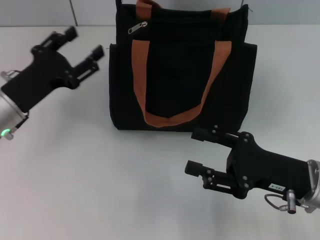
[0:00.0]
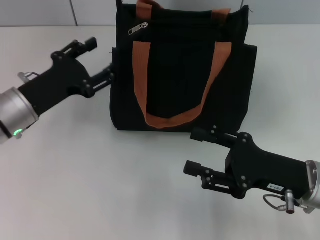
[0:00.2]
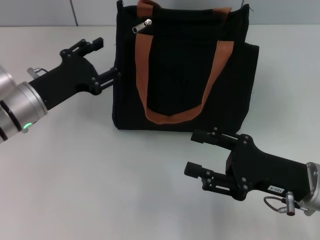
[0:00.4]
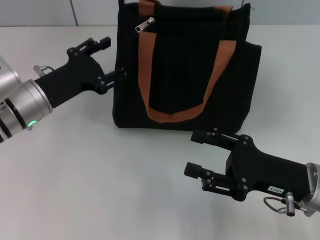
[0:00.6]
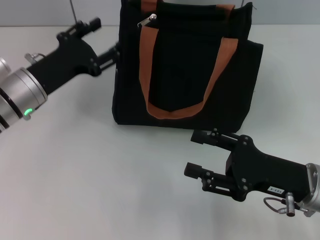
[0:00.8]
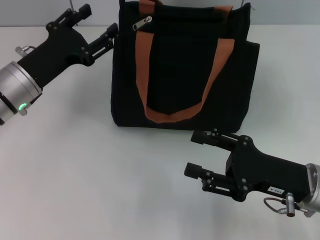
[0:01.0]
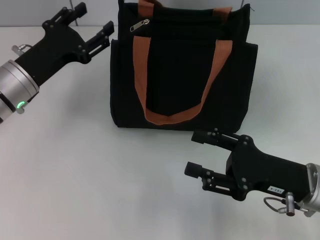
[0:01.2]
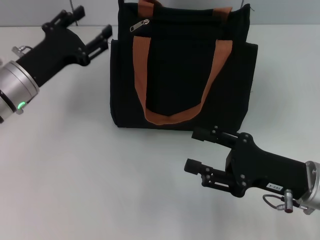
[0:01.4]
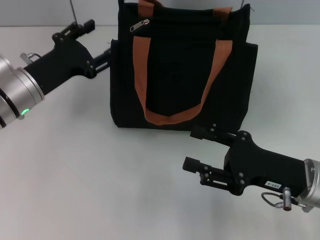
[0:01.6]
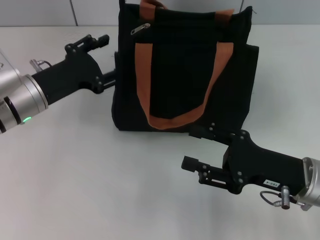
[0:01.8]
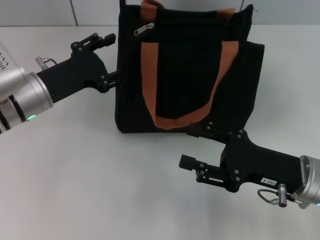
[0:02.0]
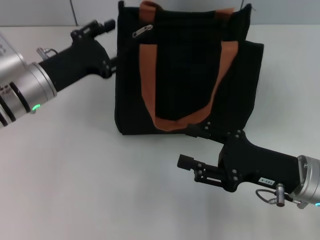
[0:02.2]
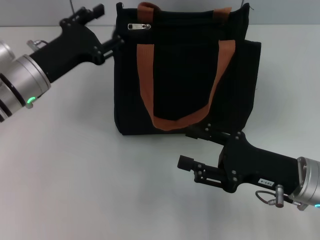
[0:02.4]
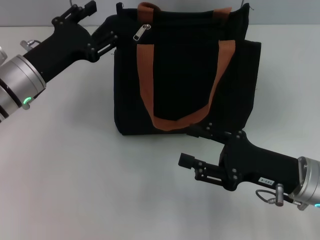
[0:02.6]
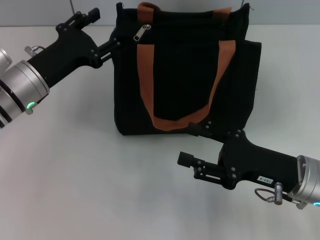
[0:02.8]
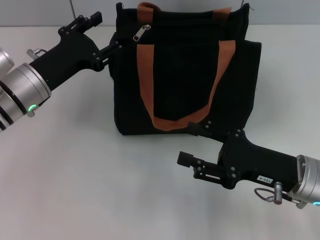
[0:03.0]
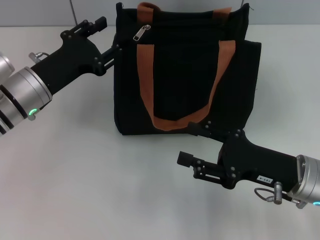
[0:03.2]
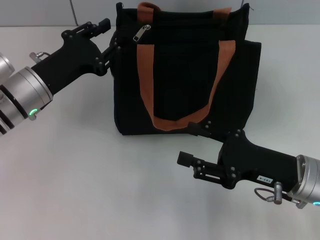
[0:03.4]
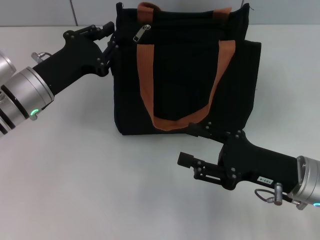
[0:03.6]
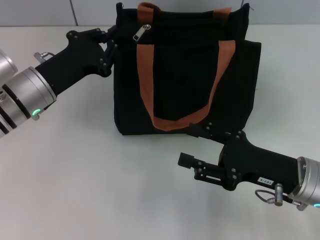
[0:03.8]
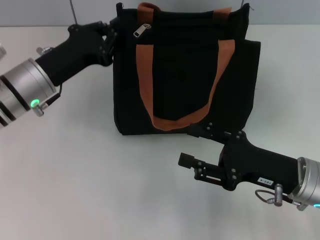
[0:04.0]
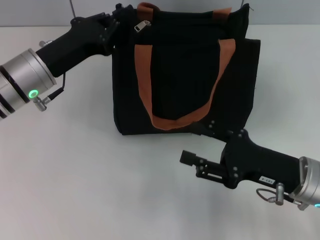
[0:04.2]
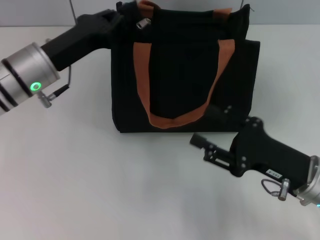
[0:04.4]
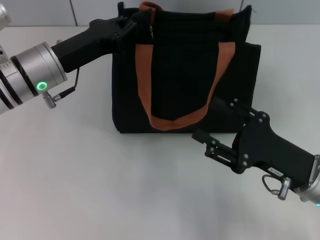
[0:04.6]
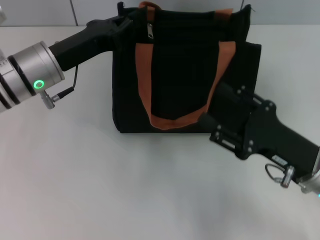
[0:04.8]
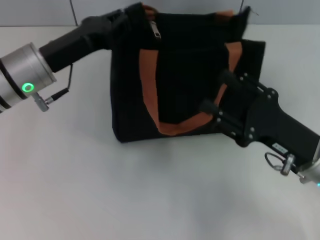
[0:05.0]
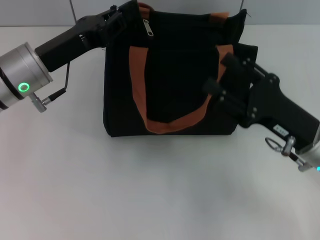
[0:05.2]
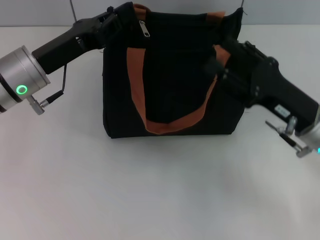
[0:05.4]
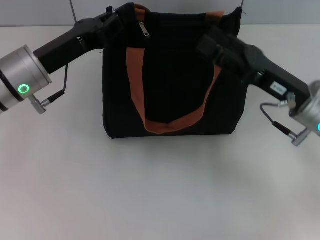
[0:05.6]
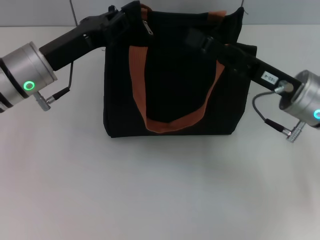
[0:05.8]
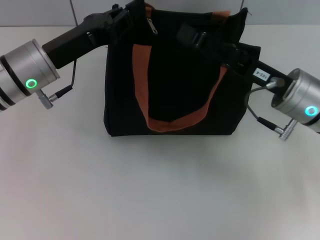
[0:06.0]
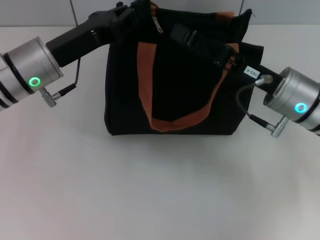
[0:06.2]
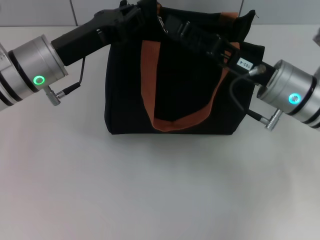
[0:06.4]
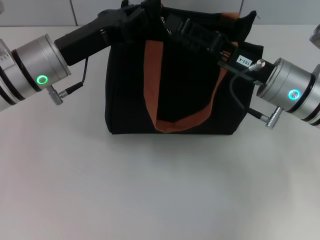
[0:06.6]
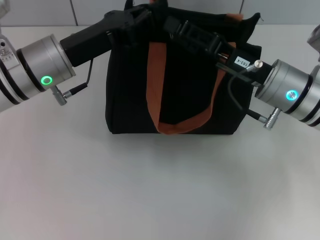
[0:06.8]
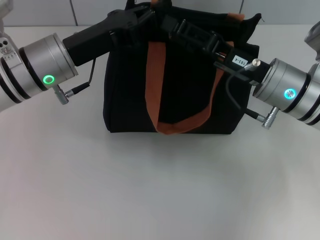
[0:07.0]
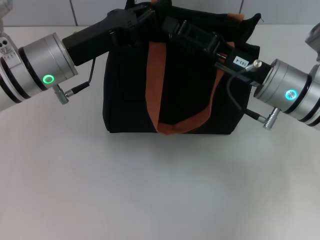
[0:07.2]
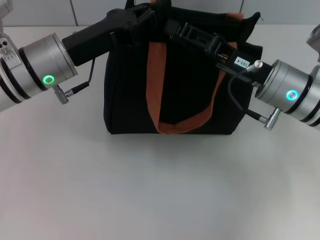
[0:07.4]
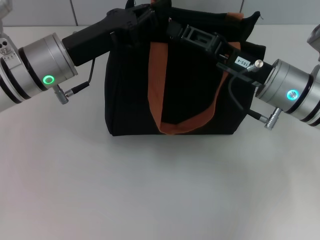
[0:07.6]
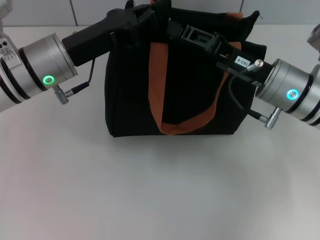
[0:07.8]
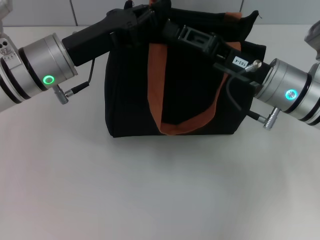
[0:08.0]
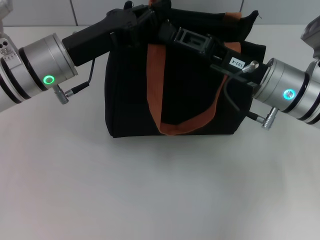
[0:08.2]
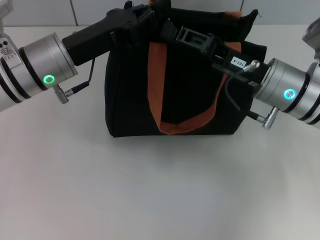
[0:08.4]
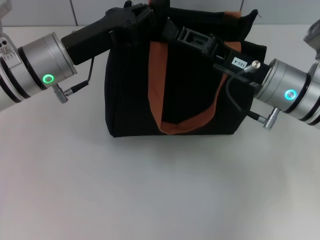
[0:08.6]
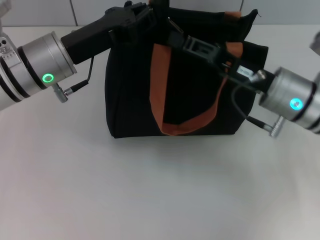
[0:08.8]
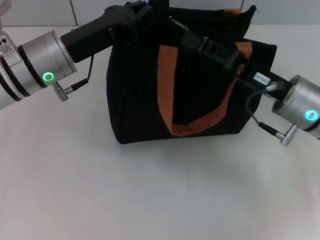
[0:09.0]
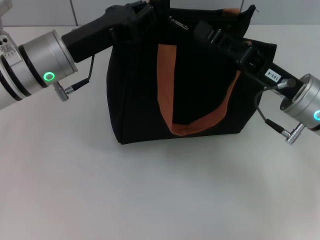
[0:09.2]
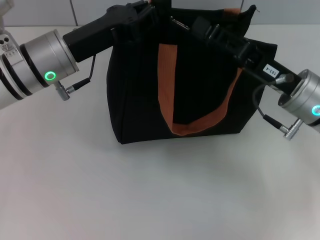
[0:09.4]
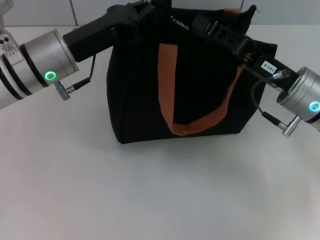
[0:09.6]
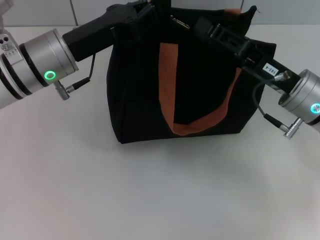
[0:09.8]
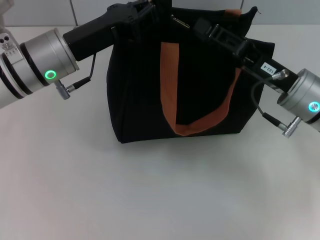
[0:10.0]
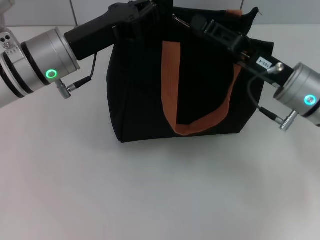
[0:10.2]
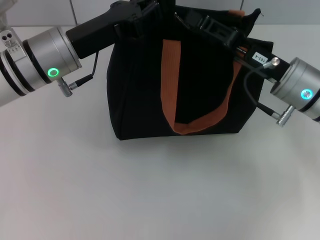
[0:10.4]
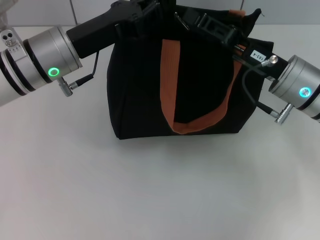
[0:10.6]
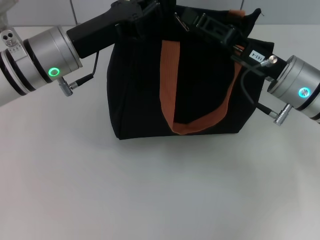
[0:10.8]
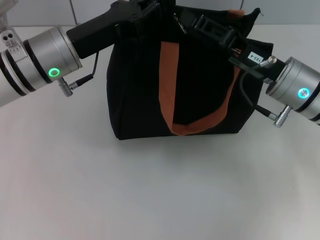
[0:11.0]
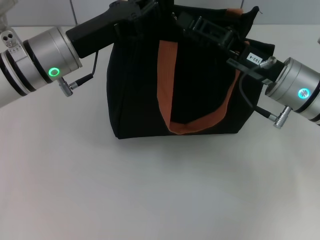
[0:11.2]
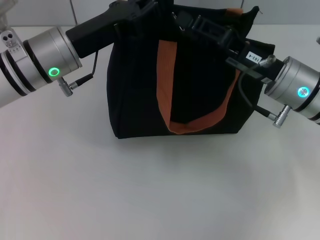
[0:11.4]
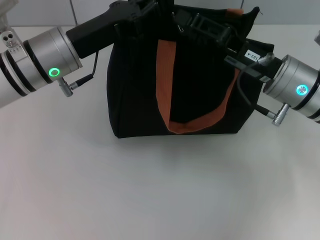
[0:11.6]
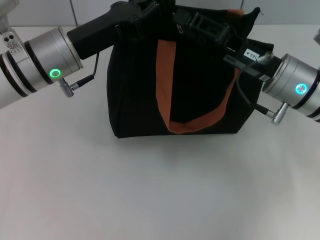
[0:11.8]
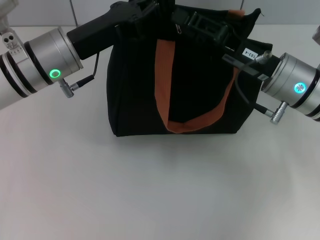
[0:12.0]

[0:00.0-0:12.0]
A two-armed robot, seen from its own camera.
0:00.0 to 0:03.0: The grippers move only a little.
0:03.0 to 0:04.4: The left gripper closes its fingers.
0:04.4 to 0:06.0: The right gripper shifts roughly 10 cm forward and upward.
0:06.0 to 0:12.0: The grippers make only small movements.

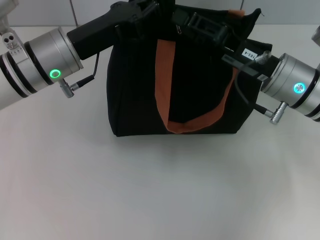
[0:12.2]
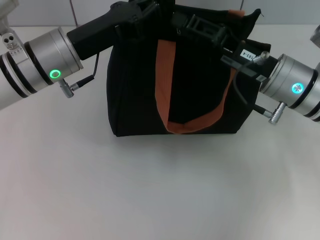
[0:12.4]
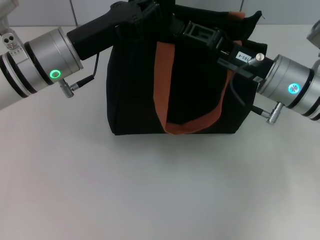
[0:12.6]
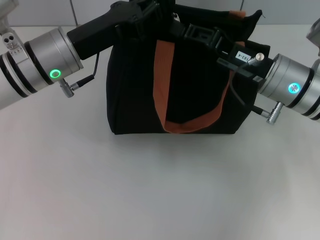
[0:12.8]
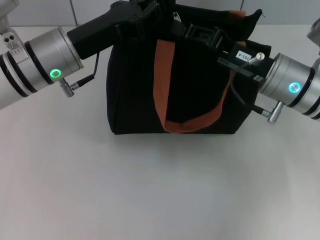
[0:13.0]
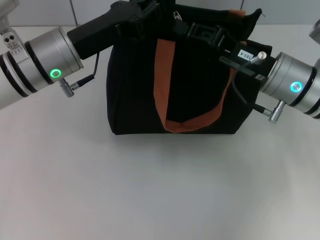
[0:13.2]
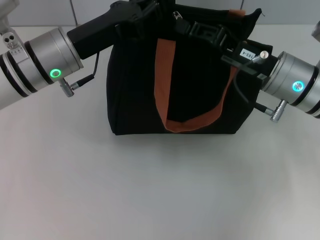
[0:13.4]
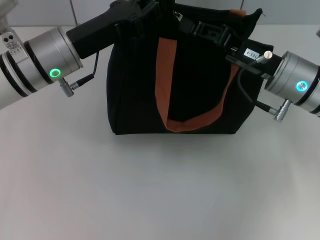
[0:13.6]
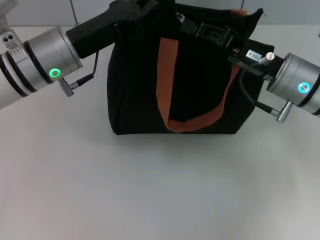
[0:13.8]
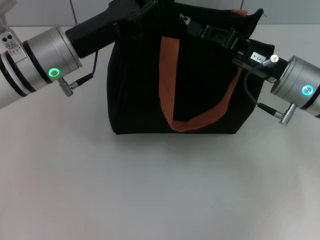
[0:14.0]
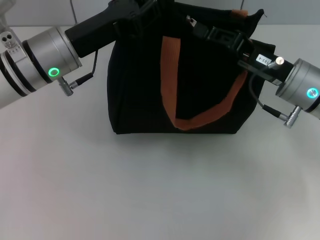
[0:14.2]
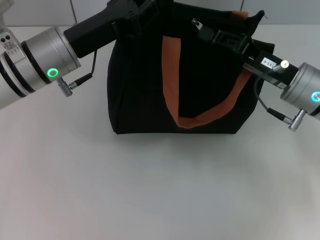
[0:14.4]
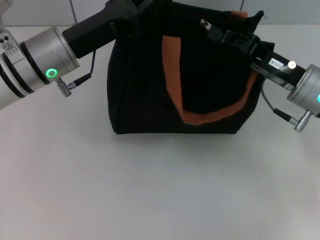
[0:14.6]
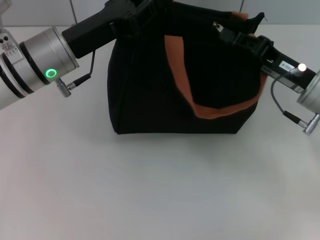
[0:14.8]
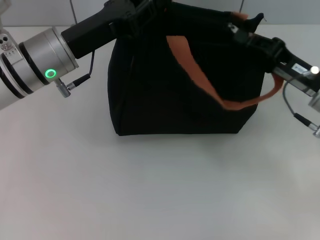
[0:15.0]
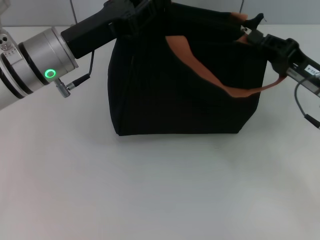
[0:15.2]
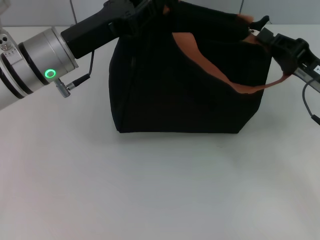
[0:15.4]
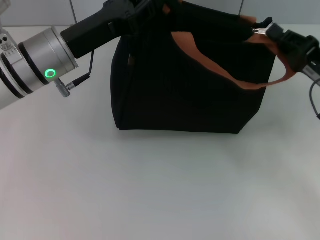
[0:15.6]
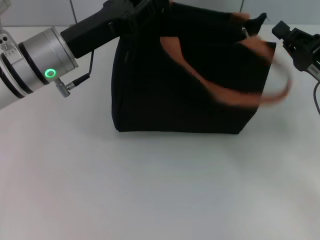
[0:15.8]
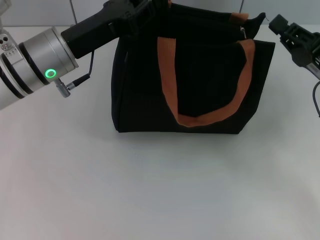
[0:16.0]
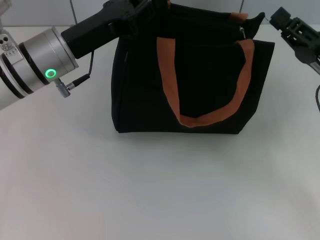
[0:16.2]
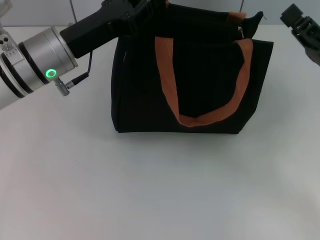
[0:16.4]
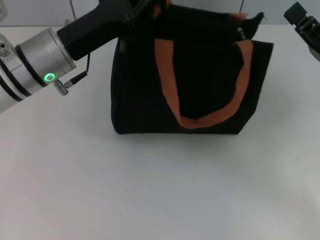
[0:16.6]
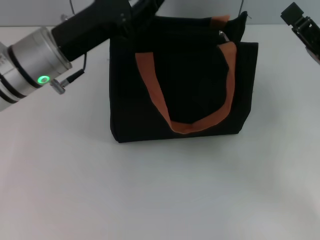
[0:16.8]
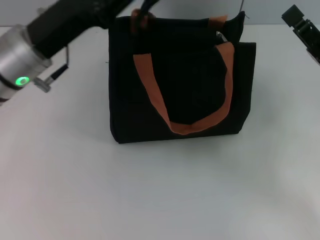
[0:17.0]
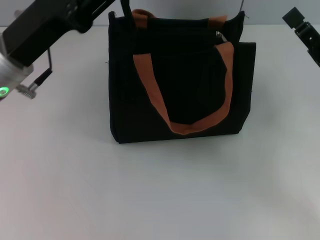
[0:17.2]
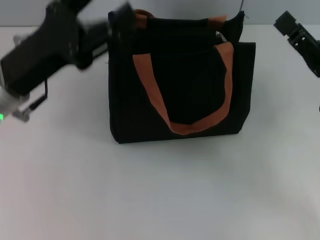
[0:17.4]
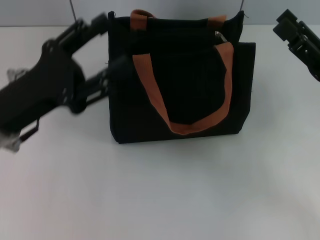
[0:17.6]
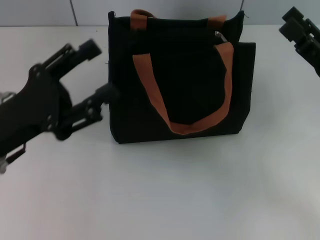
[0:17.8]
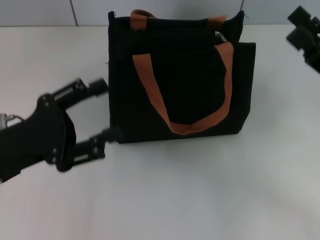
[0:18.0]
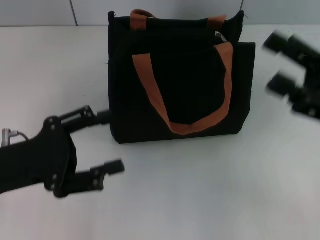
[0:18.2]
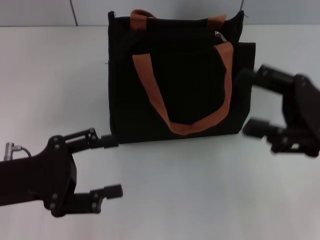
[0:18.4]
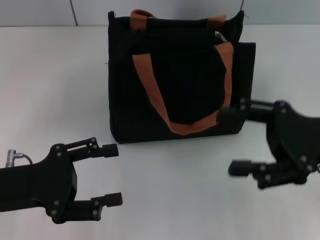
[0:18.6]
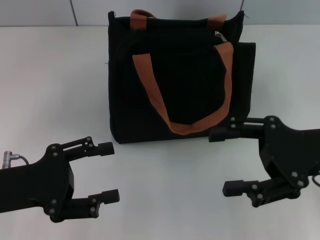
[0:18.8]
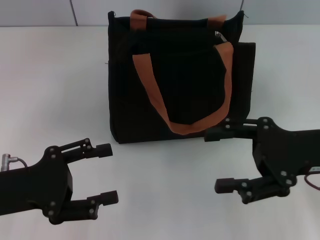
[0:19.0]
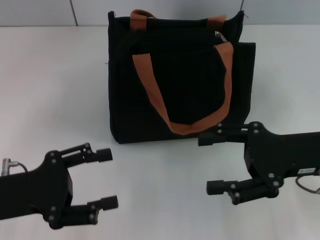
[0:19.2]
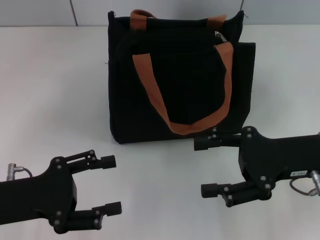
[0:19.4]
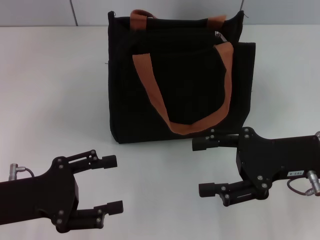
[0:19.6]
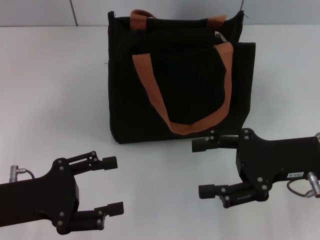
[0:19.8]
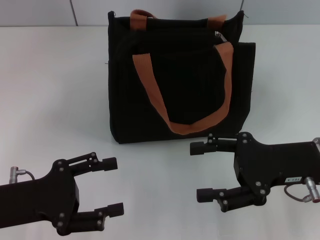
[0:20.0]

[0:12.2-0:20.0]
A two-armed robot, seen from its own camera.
Step, 0:12.2 to 0:15.6: Pull up the zipper with your right hand.
Step, 0:16.0 to 0:17.4: Grab the zipper with your left hand.
0:12.2 to 0:13.8: The right gripper closes its fingers.
0:13.8 to 0:15.4: The right gripper shifts about 10 cm to the right.
0:15.4 to 0:16.8: The right gripper opens up.
0:16.8 to 0:18.4: The left gripper is displaced backward and to the left by some 15 cm, and opens. The right gripper shifts by some 5 cm, and opens its fingers.
